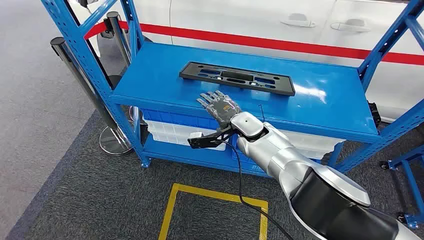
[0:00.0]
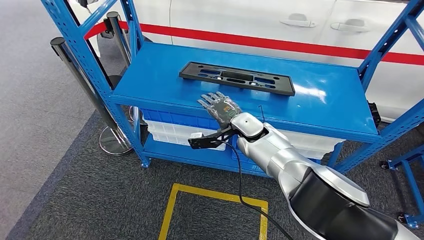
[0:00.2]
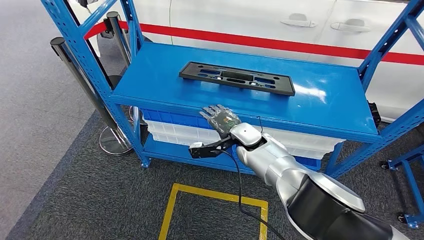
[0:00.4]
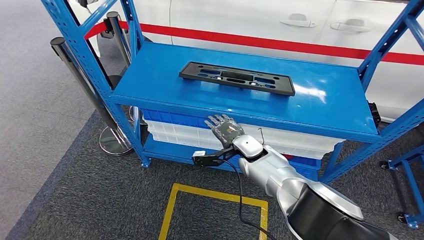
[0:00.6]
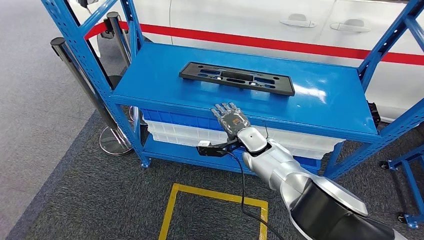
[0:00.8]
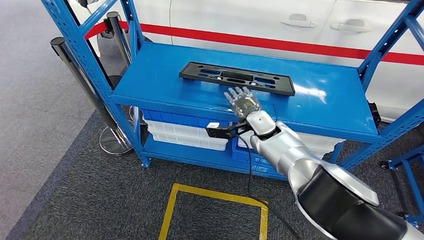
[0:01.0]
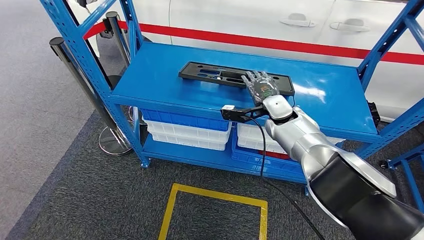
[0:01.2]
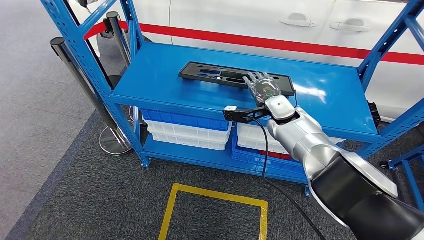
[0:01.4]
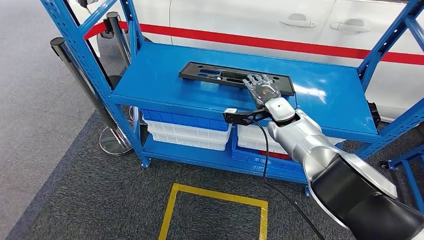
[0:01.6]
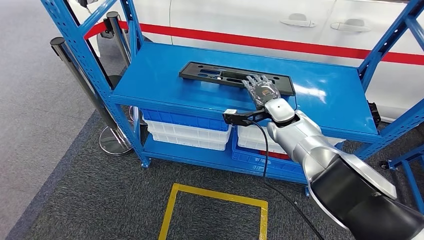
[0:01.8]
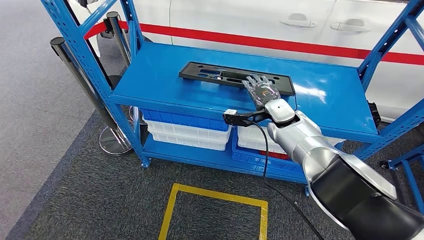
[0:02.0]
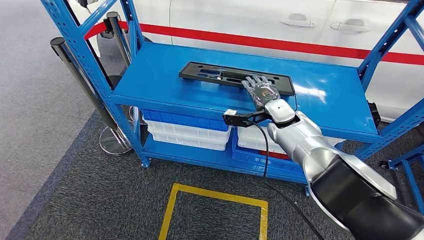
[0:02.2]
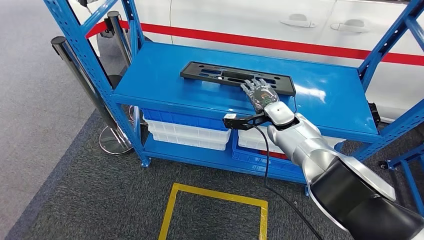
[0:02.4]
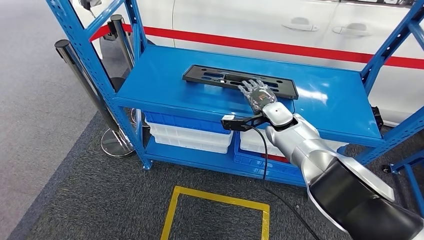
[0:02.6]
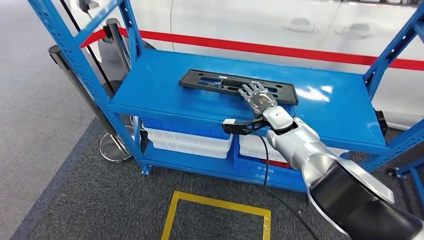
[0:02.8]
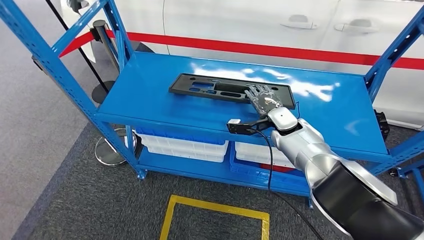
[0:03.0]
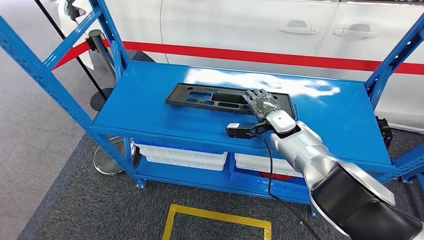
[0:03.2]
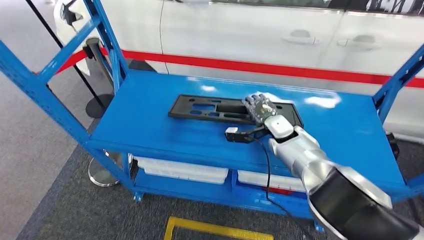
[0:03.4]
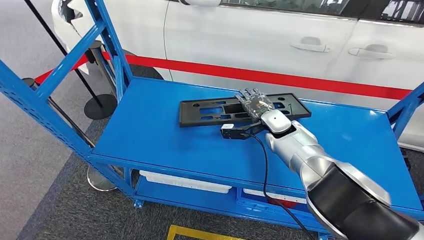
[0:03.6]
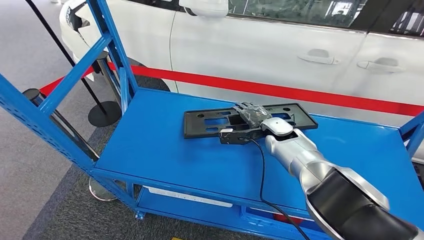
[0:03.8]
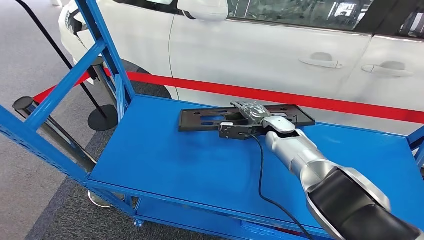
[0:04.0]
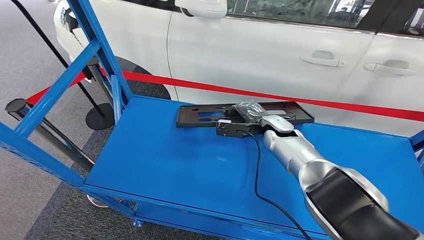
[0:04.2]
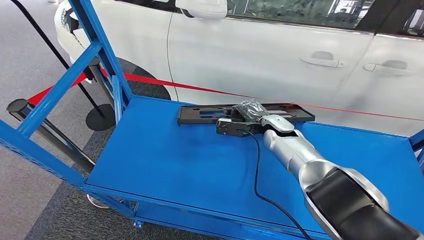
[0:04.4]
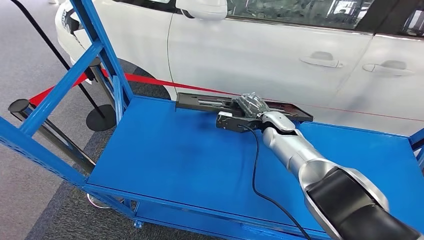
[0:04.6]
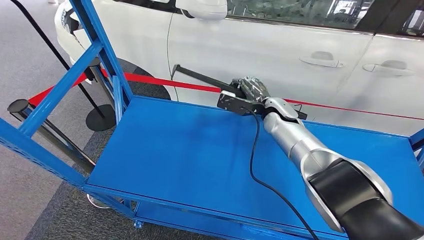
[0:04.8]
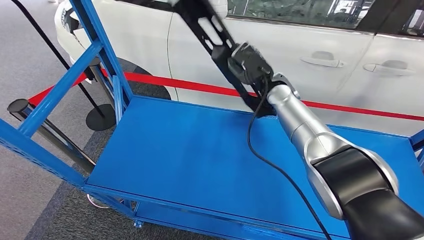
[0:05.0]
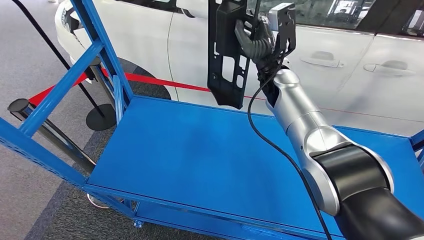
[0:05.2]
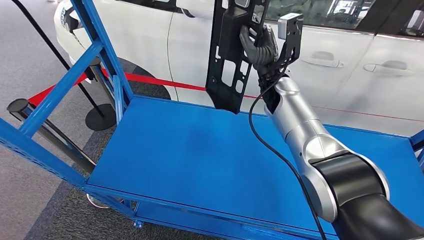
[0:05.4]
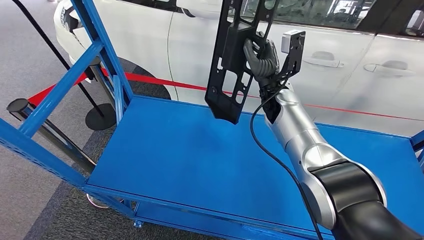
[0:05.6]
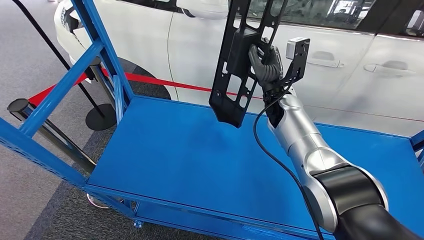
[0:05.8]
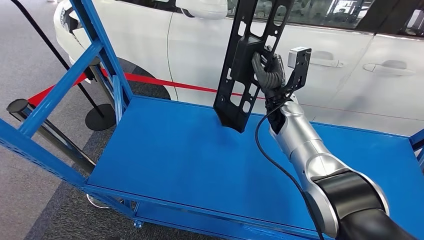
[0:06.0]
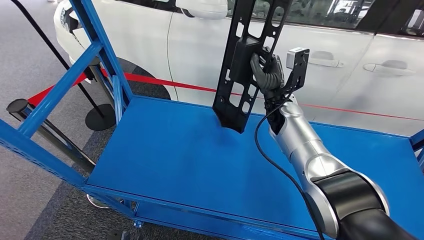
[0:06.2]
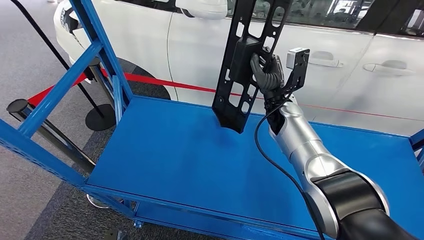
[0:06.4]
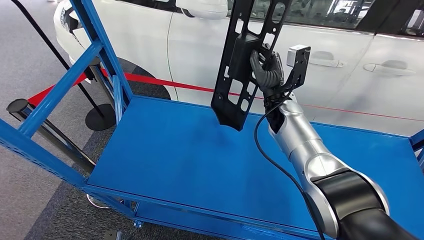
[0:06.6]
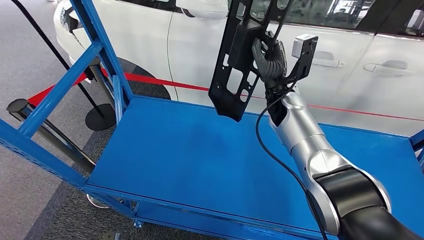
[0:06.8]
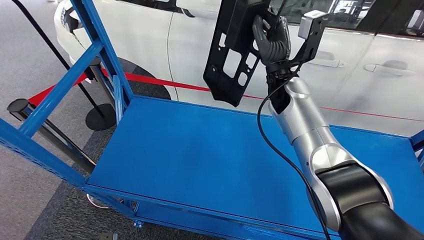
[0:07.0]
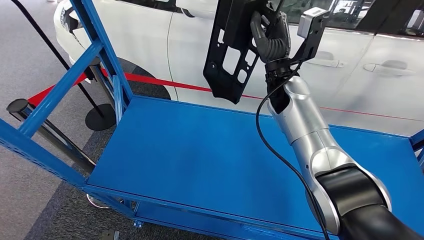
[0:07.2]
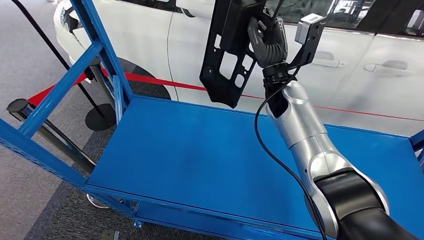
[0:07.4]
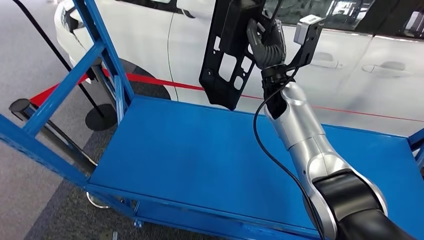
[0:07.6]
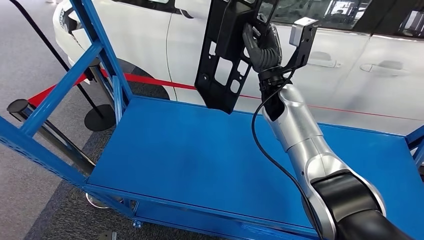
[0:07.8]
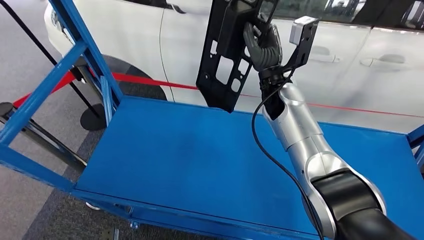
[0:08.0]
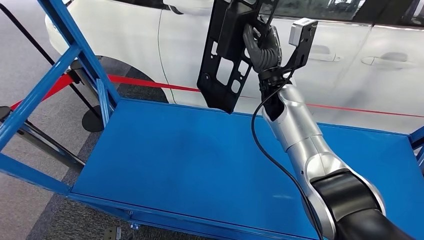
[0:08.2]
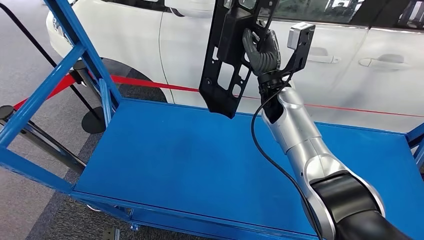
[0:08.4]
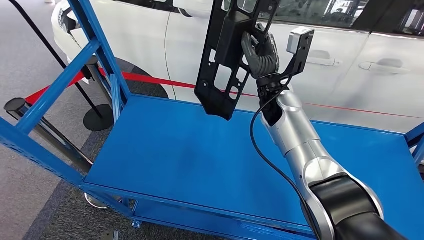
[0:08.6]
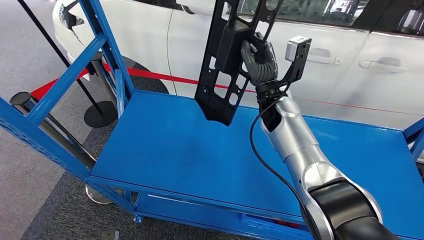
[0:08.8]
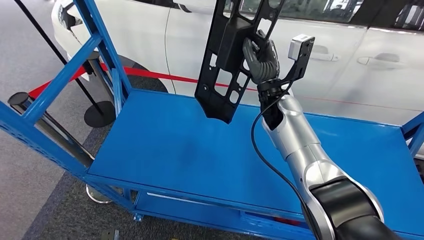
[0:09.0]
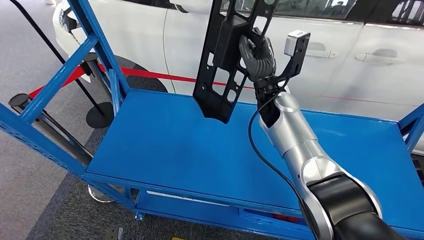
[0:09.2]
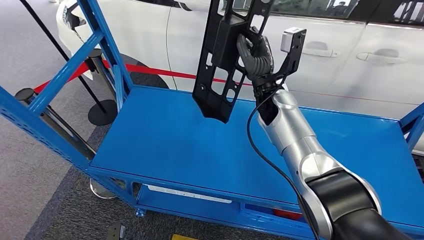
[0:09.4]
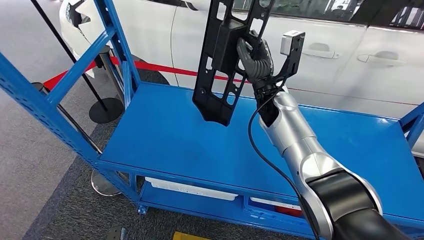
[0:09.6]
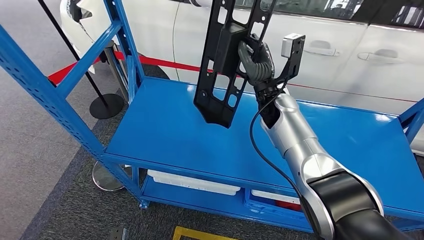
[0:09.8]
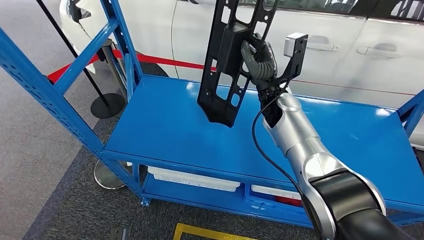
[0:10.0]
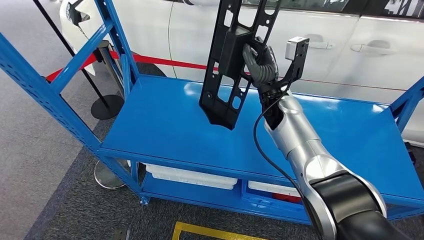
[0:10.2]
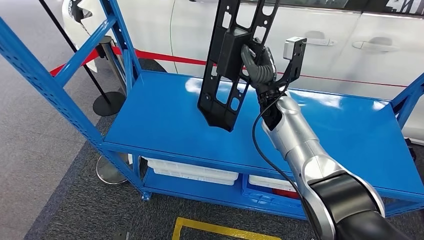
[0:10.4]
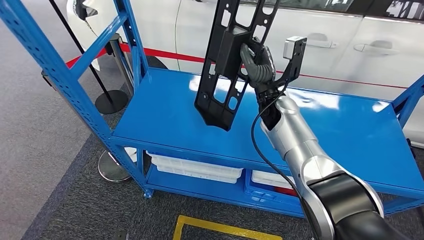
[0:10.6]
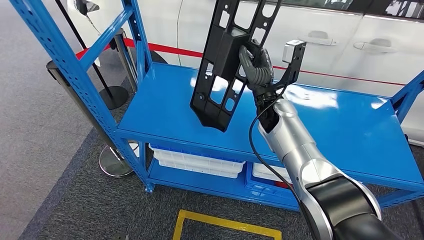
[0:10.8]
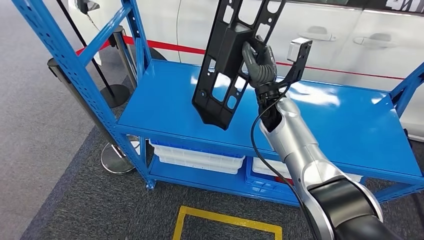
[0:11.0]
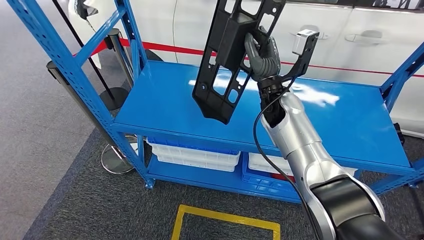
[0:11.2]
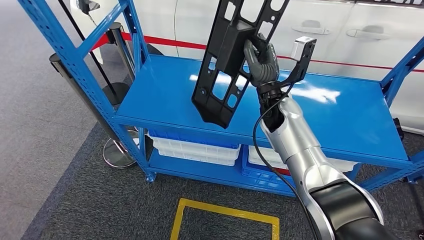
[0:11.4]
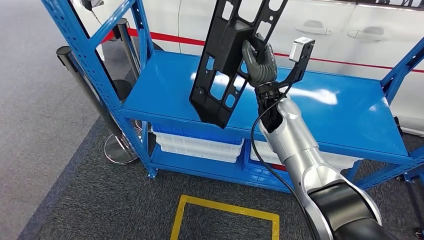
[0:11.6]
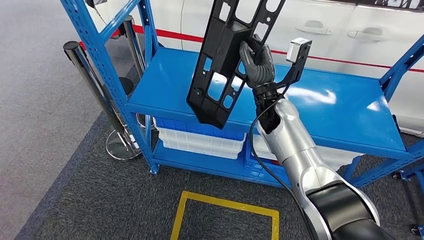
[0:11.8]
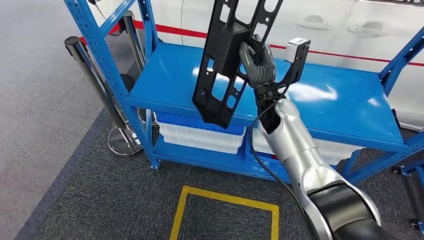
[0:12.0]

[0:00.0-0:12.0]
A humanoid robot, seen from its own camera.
Step, 0:00.0 to 0:05.0: Pick up the large material from the shelf.
0:04.4 to 0:06.0: The right hand is displaced upward by approximately 5 cm.
0:06.0 to 0:07.6: The right hand travels upward by about 10 cm.

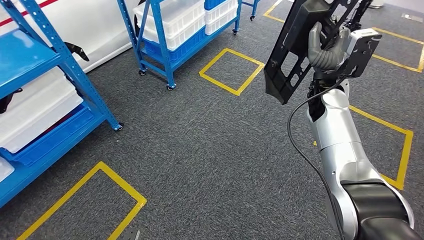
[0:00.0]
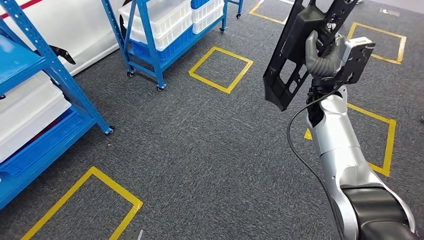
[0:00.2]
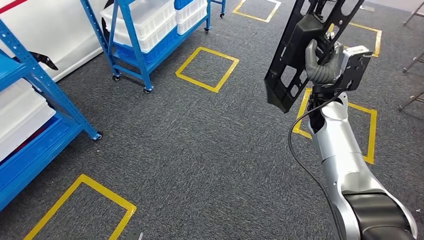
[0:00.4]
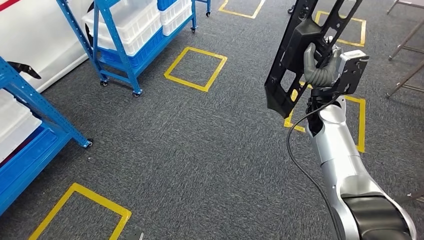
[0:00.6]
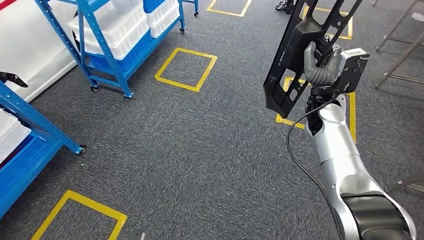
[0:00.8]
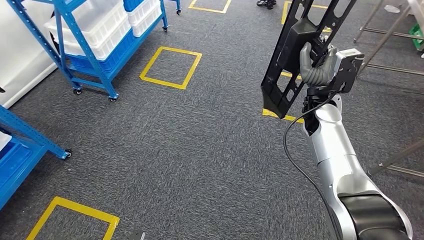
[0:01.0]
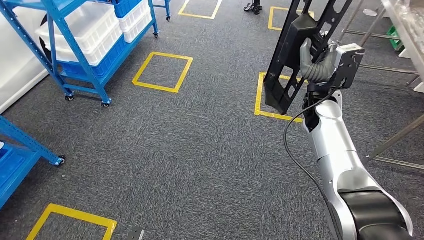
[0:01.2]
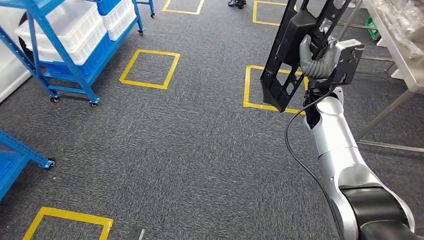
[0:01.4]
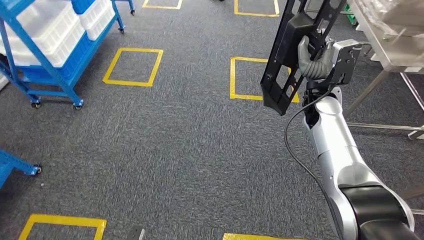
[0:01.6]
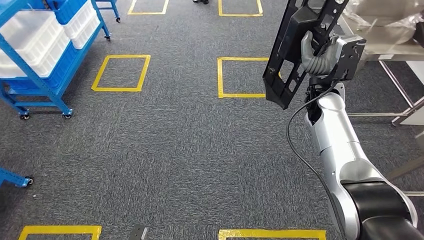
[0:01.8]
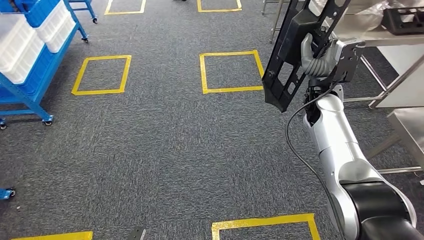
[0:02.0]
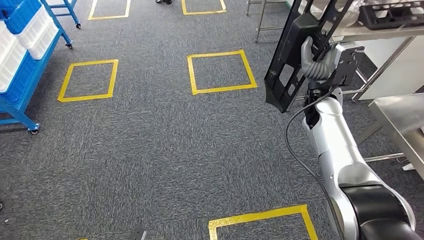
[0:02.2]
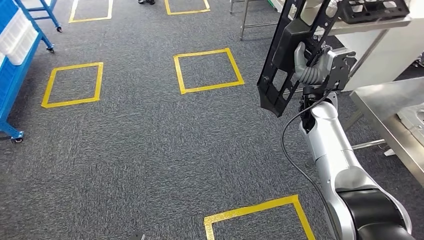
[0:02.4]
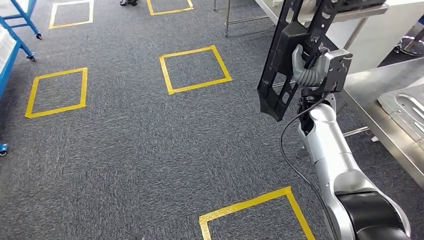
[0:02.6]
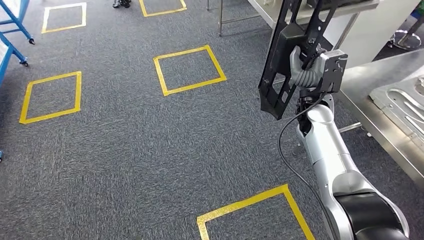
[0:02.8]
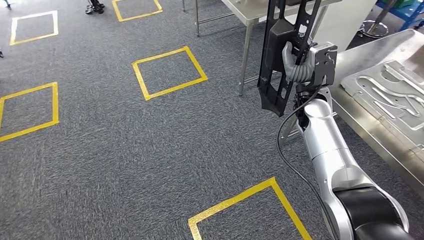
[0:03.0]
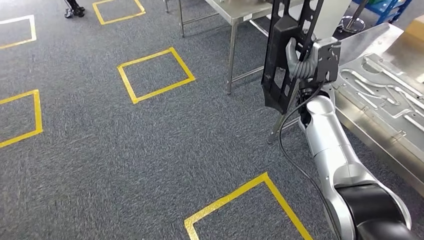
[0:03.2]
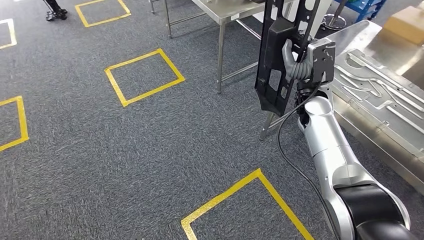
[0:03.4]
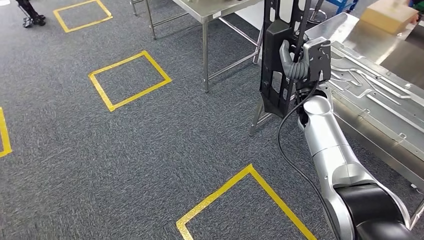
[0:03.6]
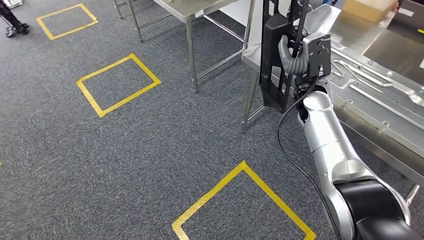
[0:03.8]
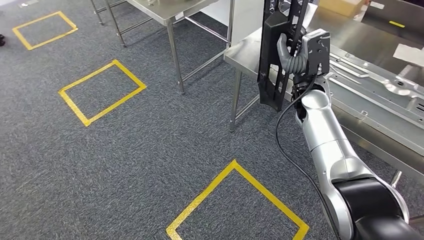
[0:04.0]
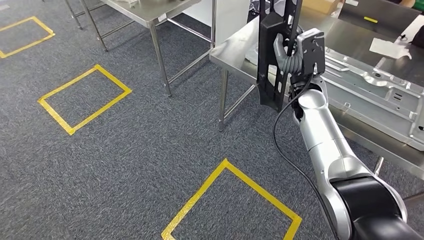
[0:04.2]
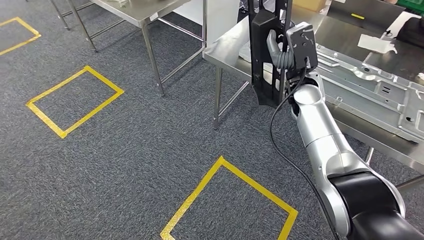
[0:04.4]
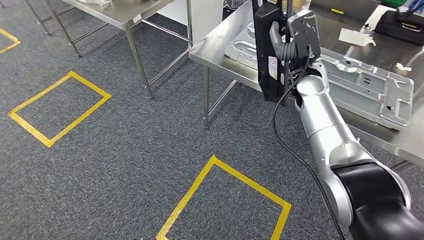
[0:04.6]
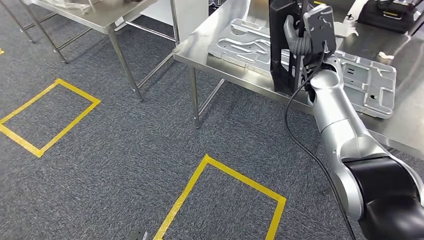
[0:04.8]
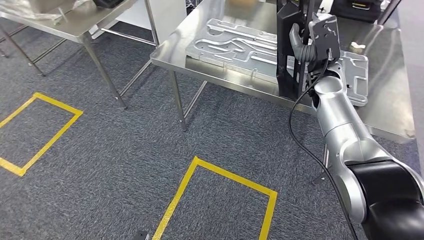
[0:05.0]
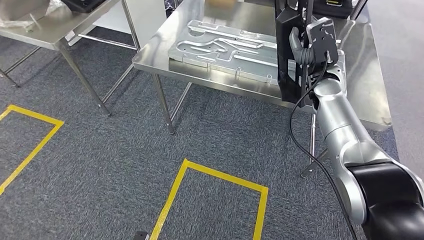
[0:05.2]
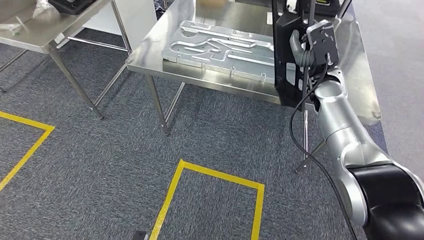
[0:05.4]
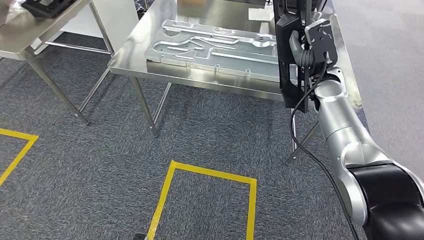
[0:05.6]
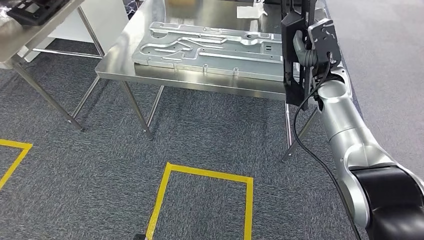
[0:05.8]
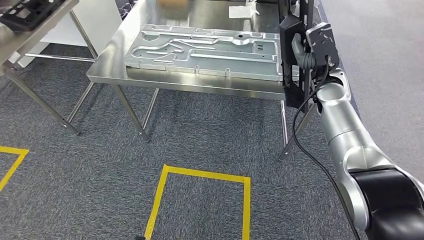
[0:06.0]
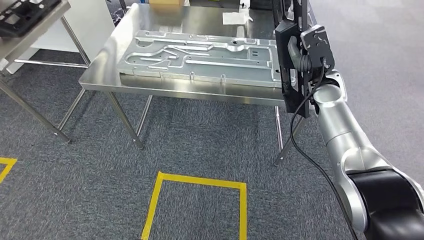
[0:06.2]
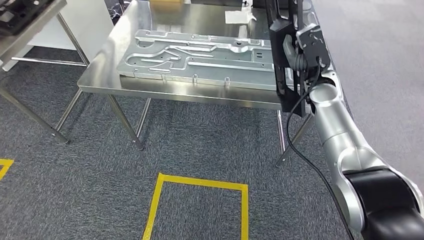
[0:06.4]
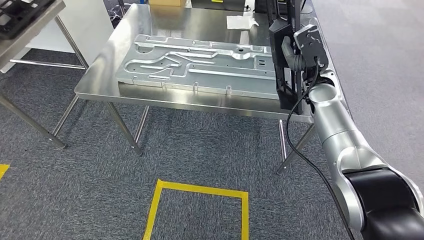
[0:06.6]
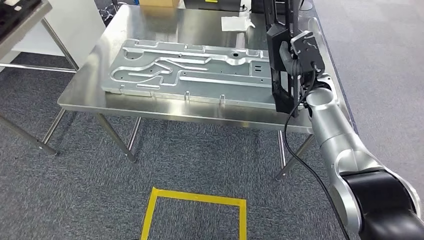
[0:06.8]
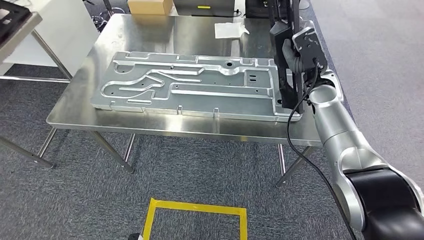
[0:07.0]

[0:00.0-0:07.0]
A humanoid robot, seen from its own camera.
Step, 0:00.0 to 0:05.6: Move the large material to the workbench.
